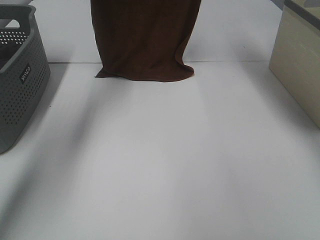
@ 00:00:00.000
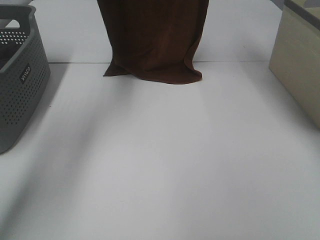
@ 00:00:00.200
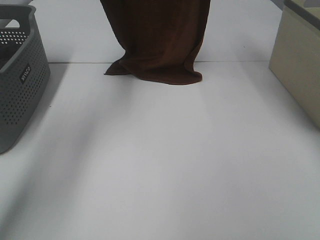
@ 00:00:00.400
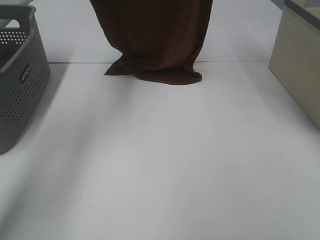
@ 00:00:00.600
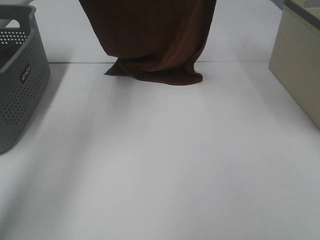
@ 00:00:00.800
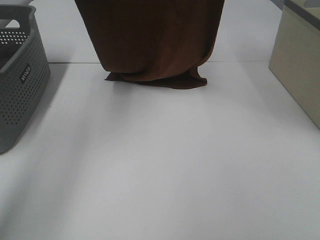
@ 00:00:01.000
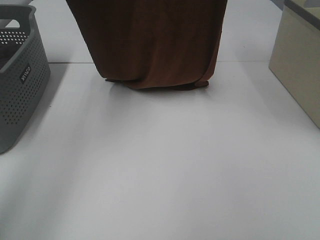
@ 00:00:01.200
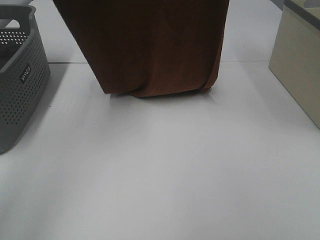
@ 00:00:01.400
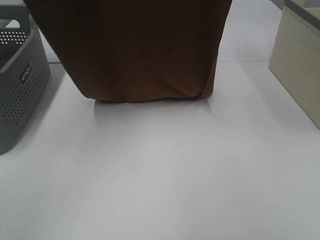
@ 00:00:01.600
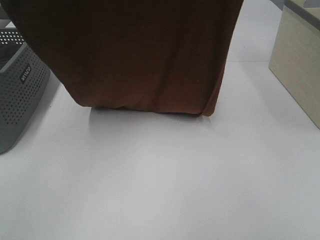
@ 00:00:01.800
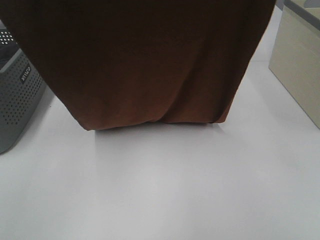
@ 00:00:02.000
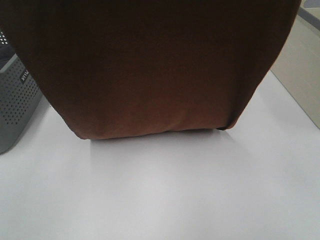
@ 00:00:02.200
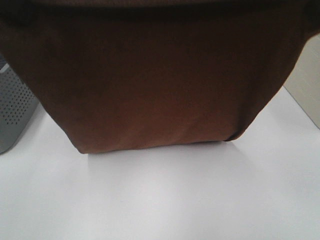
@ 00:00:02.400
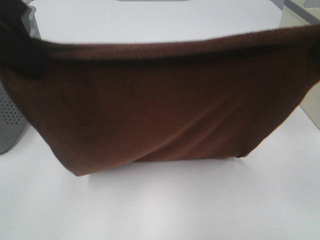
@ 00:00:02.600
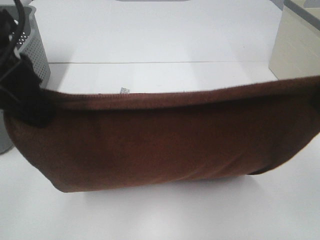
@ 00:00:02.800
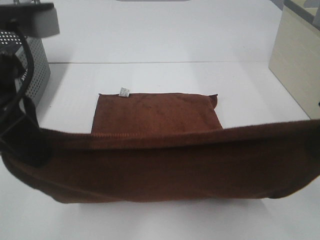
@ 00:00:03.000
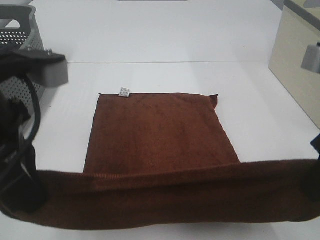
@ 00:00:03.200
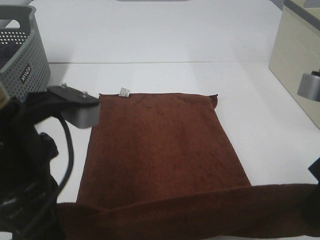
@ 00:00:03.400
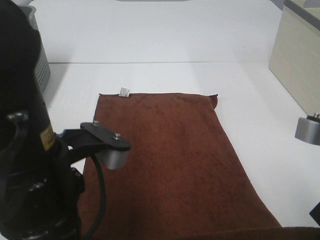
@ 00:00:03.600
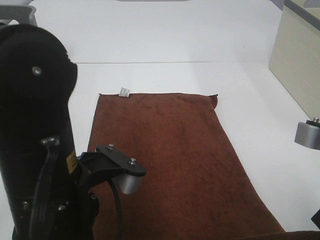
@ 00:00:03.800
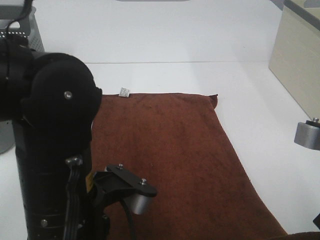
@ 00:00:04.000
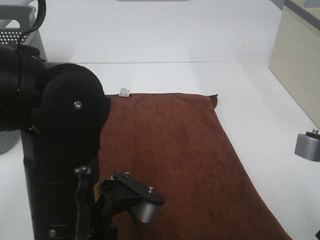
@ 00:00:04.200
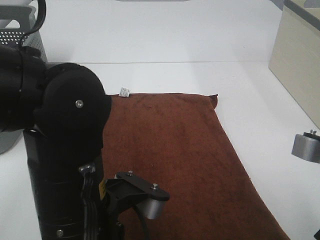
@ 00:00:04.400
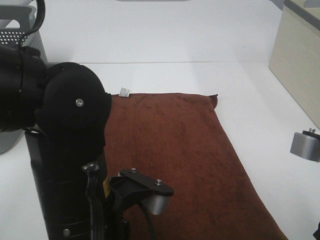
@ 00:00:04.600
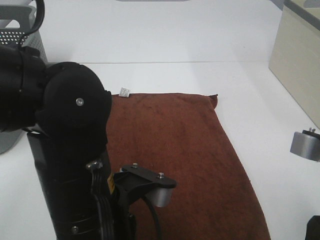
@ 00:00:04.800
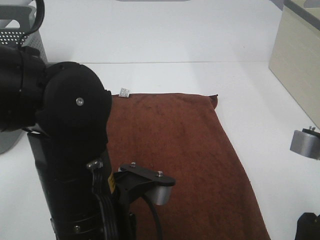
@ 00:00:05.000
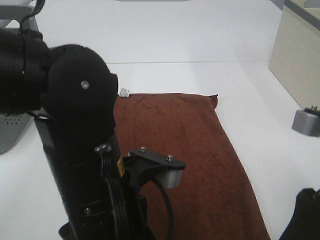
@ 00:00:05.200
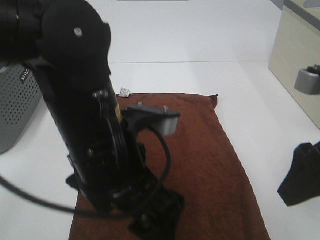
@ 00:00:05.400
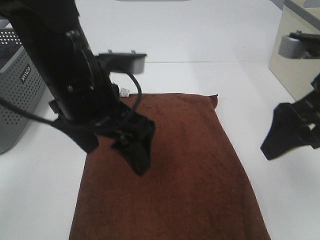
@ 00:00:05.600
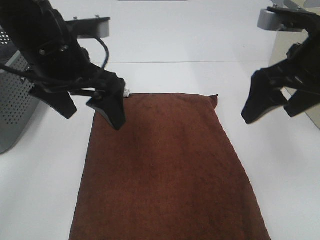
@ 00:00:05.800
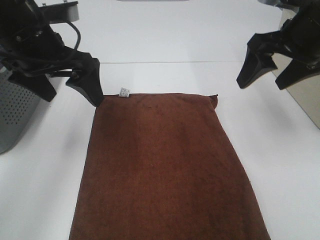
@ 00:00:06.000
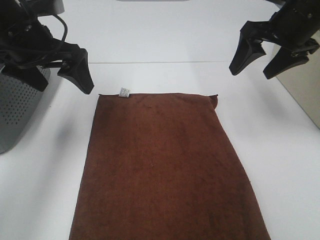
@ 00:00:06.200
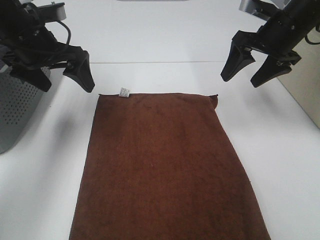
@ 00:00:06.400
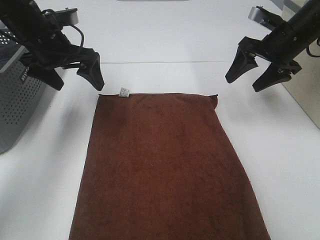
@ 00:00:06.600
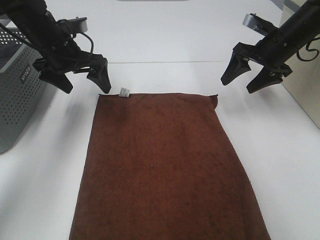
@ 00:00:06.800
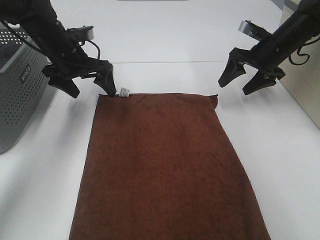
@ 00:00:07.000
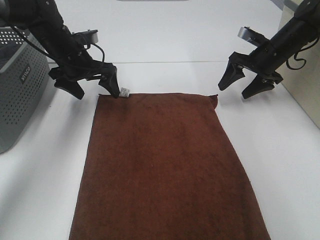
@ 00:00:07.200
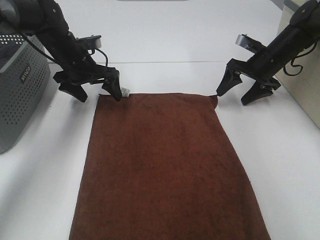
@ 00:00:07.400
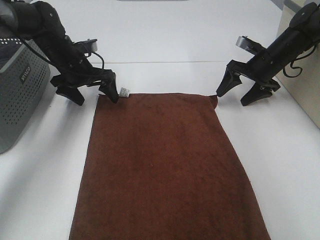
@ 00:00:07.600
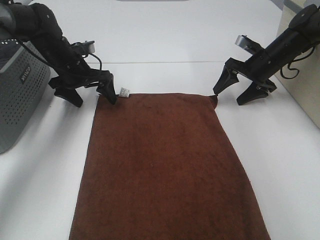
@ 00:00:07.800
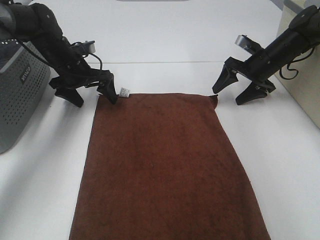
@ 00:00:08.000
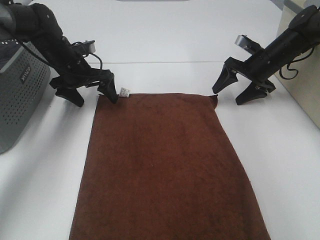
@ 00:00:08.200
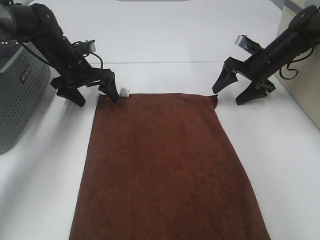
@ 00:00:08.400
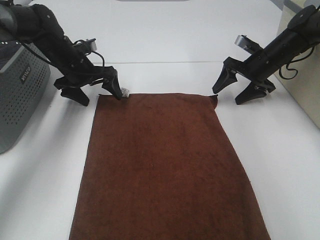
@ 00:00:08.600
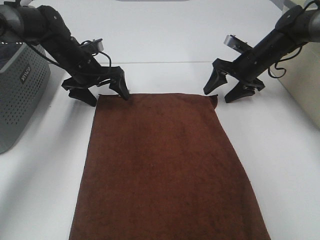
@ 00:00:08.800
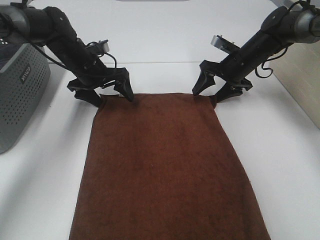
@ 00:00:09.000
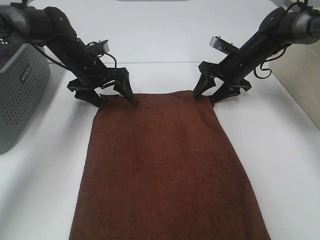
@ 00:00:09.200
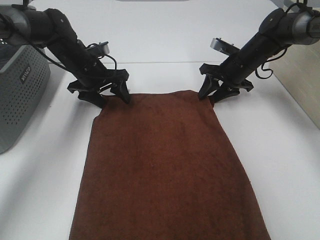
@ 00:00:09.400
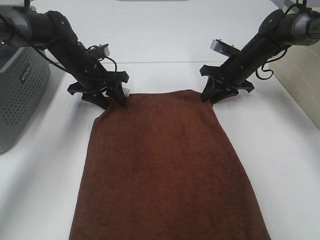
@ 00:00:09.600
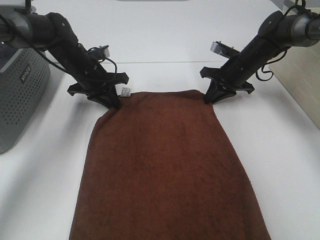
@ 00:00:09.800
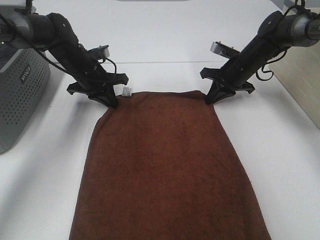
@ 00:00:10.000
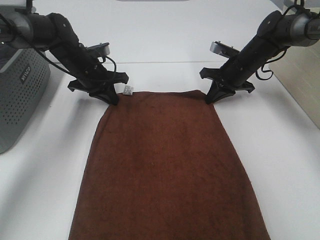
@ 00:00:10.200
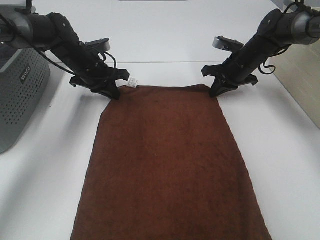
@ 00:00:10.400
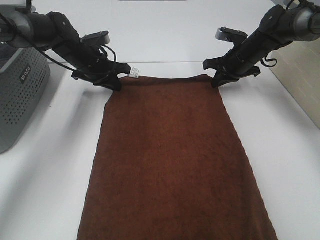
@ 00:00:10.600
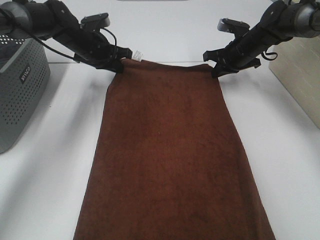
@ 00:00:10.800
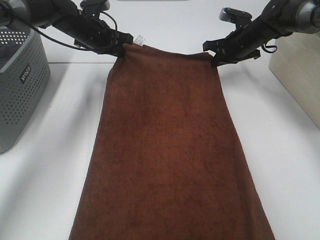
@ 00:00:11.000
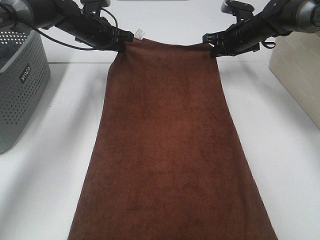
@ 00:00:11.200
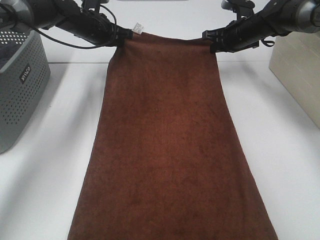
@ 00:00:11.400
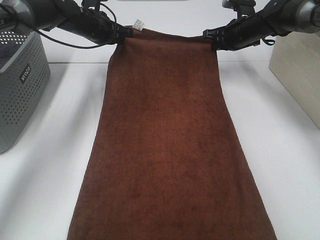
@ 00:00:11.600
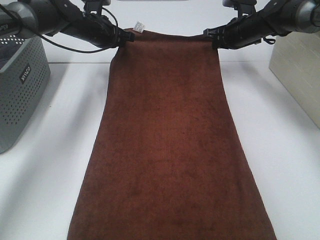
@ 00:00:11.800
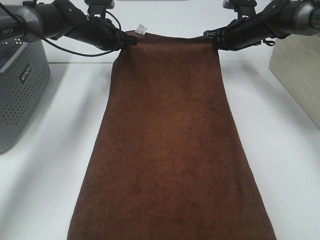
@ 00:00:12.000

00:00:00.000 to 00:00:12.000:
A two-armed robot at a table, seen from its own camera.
Task of the whole recording: Remove the towel and place it.
Step, 00:00:00.400 to 00:00:07.800: Left hand:adjust the brown towel.
Step, 00:00:00.400 to 00:00:07.800: Right hand:adjust the brown towel.
00:00:00.000 to 00:00:01.600: The grippers both shift backward by some 20 cm.
00:00:01.600 to 00:00:03.000: The two grippers go some 20 cm downward and backward.
00:00:03.000 to 00:00:04.400: The right gripper shifts roughly 10 cm downward and backward. The left gripper is displaced downward, to the right and backward by approximately 15 cm.
00:00:04.400 to 00:00:06.000: The right gripper goes approximately 20 cm forward, and opens, while the left gripper travels forward and to the left by some 25 cm, and opens.
00:00:06.000 to 00:00:07.600: The right gripper moves downward and forward, roughly 25 cm. Meanwhile the left gripper moves forward and downward, some 20 cm.
00:00:07.600 to 00:00:09.000: The right gripper shifts about 5 cm to the left.
00:00:09.000 to 00:00:10.400: The right gripper closes up; the left gripper closes up.
00:00:10.400 to 00:00:12.000: The right gripper moves some 5 cm, while the left gripper moves forward, some 5 cm.

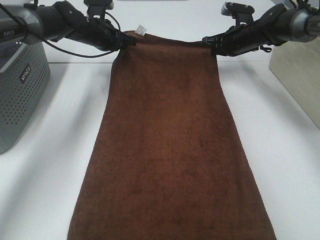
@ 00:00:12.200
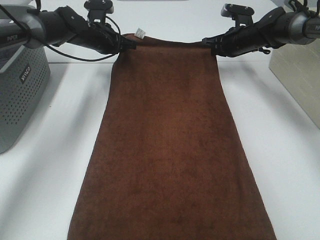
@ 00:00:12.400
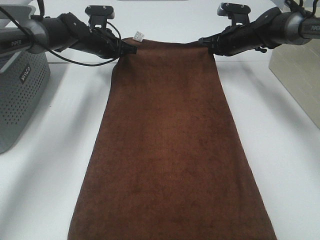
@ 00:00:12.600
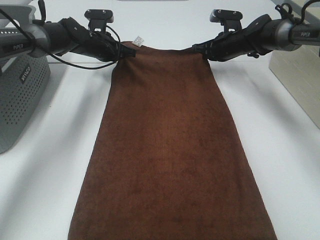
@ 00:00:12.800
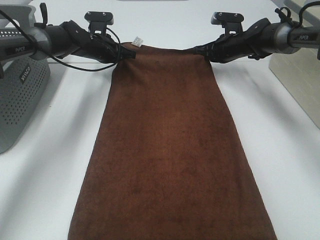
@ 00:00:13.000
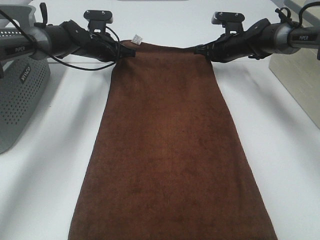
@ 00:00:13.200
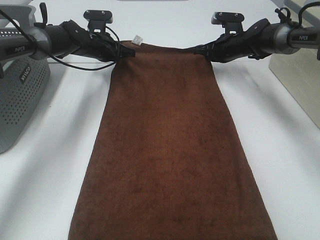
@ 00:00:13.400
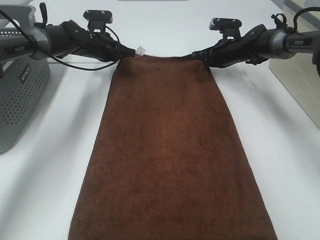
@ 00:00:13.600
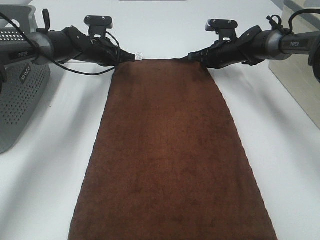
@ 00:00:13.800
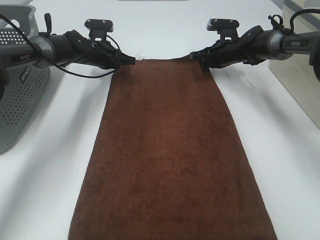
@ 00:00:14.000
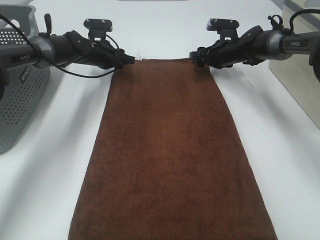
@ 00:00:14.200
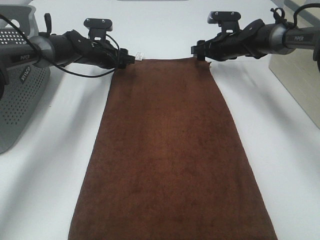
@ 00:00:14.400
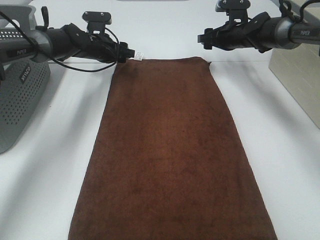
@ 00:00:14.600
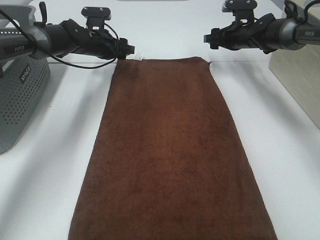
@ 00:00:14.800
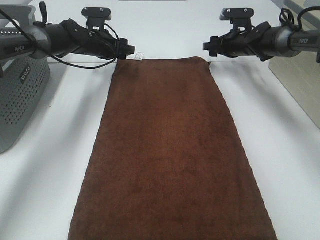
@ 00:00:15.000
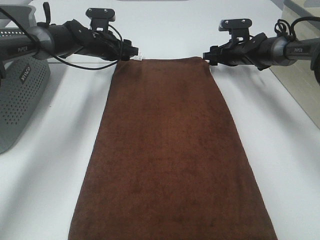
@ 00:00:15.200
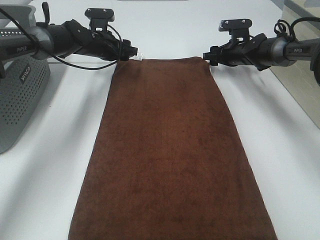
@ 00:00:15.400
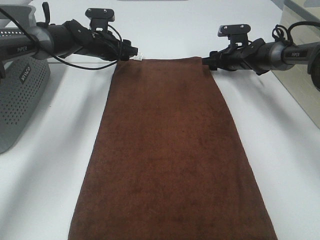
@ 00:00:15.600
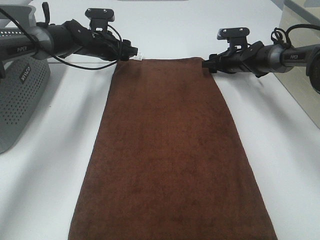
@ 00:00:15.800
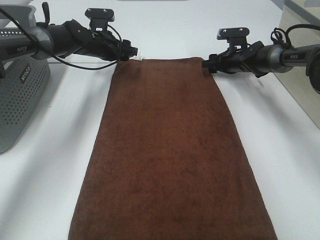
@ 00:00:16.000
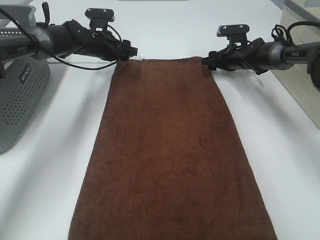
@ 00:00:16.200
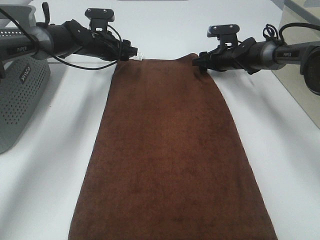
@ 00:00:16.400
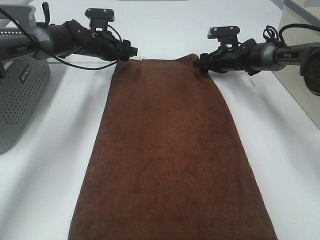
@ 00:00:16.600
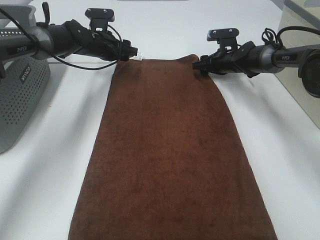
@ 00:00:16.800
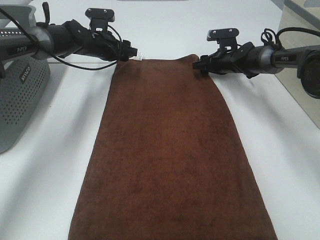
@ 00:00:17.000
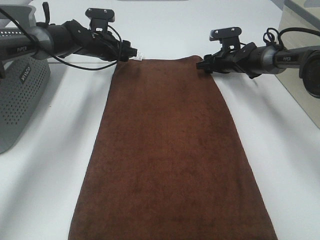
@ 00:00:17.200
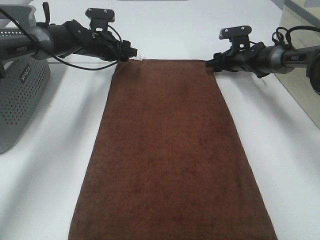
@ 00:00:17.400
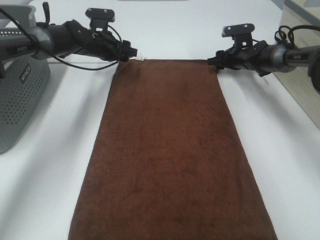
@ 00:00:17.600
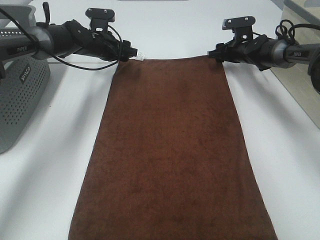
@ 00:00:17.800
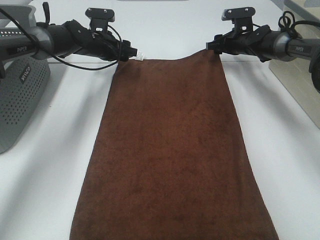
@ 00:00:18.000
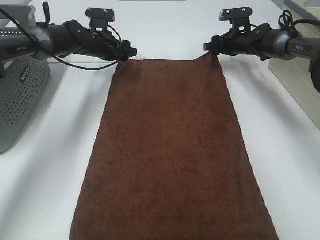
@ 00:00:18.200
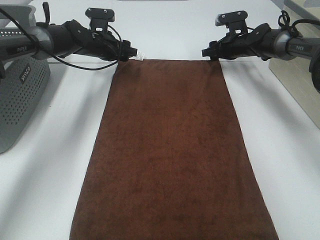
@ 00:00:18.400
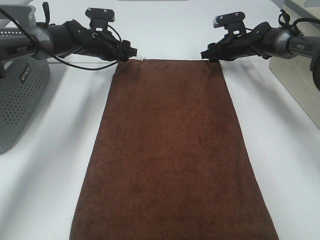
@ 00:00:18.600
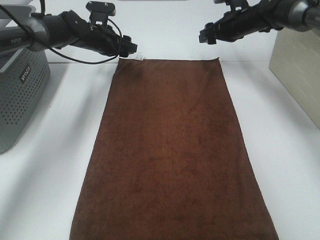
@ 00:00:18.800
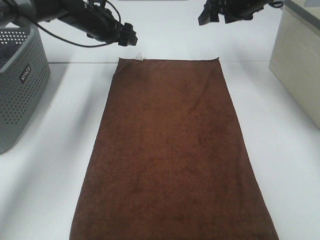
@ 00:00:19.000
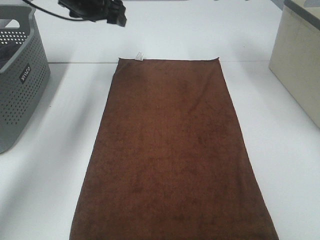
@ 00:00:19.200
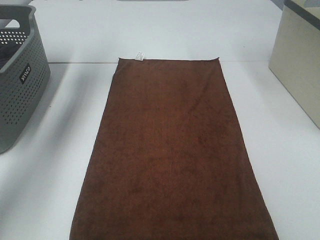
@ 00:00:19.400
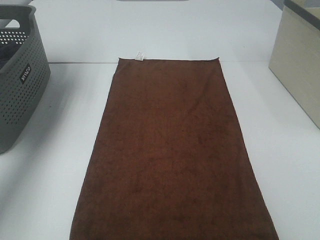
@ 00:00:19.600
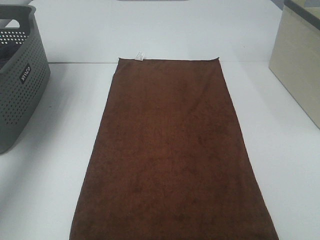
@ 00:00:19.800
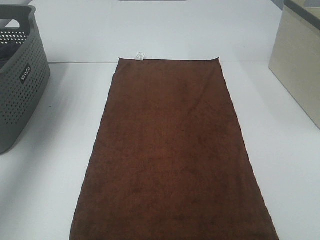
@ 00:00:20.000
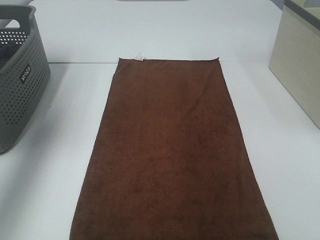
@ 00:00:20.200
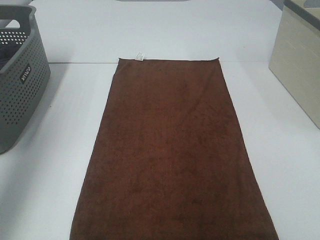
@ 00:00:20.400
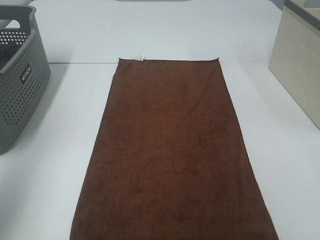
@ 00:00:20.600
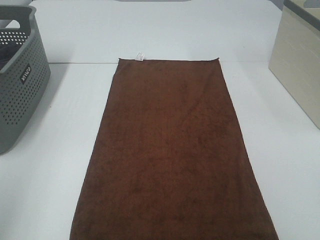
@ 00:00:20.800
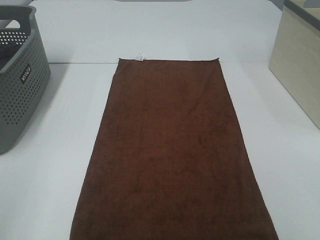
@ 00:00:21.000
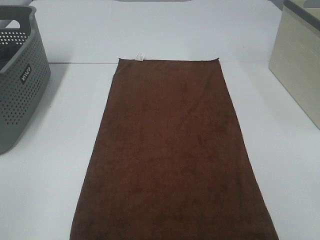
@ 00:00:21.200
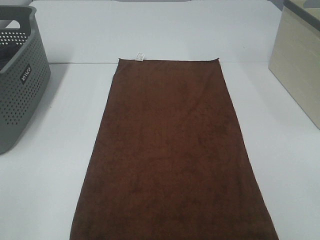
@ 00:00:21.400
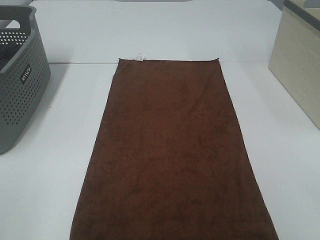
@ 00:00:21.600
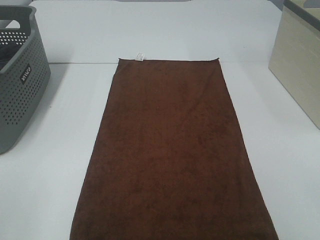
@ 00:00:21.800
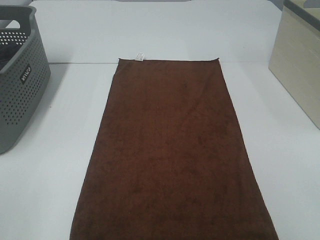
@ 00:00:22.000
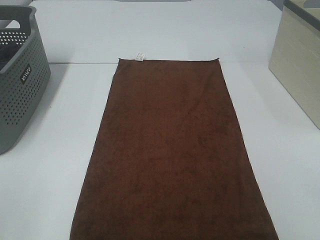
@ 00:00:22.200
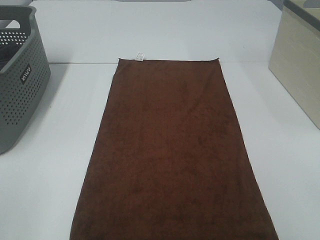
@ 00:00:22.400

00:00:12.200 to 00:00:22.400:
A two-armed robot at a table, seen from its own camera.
Task of the whole recording: Remove the towel and place it.
00:00:12.200 to 00:00:13.600: The grippers stay close to where they were, moving slightly.
00:00:13.600 to 00:00:15.200: The left gripper opens up, while the right gripper opens up.
00:00:15.200 to 00:00:16.600: The grippers move only a little.
00:00:16.600 to 00:00:18.000: The right gripper moves some 5 cm.
00:00:18.000 to 00:00:19.400: The left gripper shifts some 25 cm upward and to the left. Meanwhile the right gripper moves upward and backward, roughly 30 cm.
00:00:19.400 to 00:00:21.000: The left gripper is displaced backward by about 50 cm.
